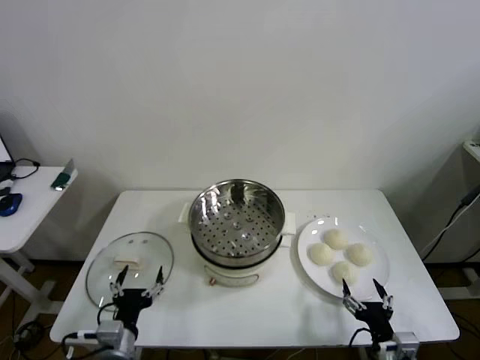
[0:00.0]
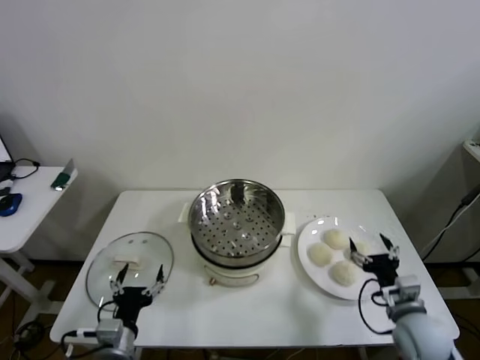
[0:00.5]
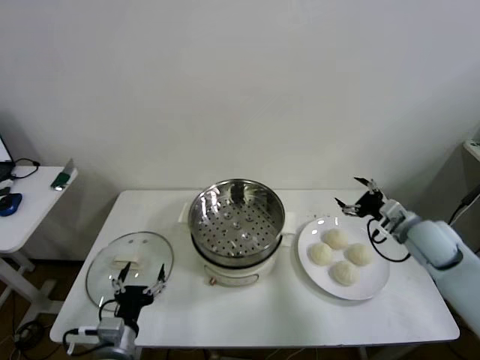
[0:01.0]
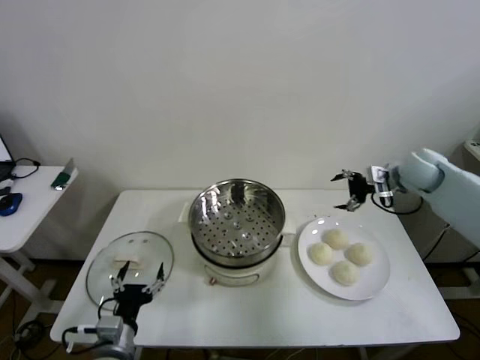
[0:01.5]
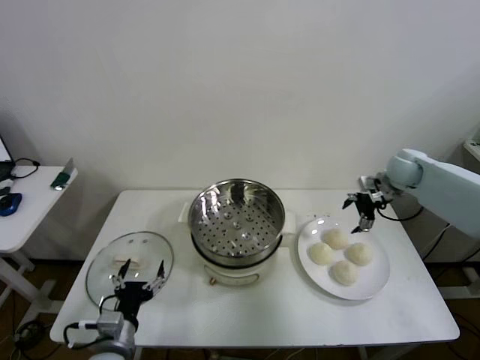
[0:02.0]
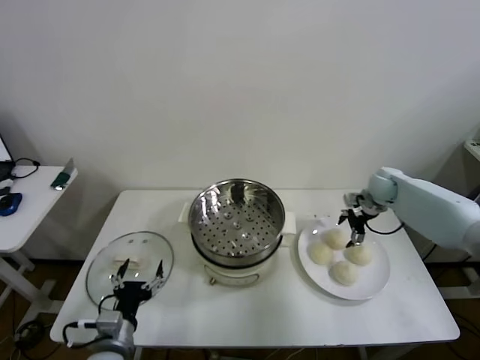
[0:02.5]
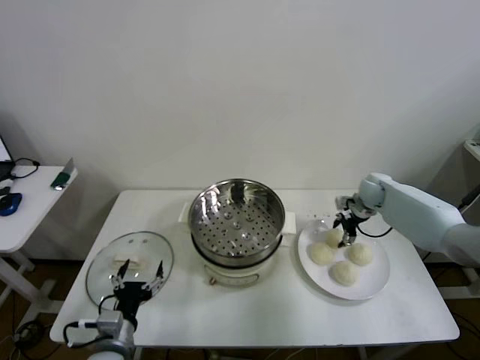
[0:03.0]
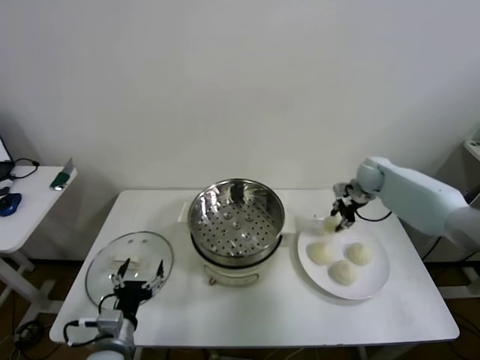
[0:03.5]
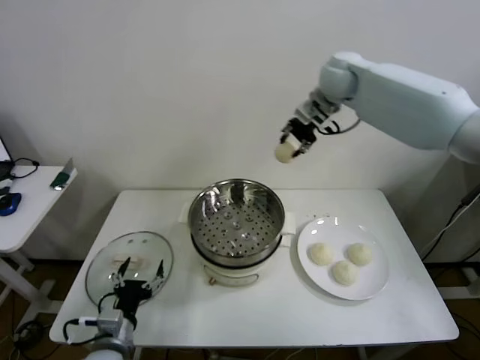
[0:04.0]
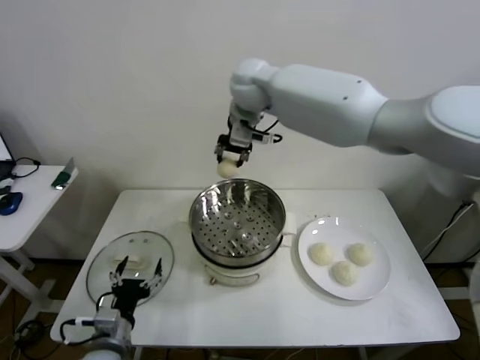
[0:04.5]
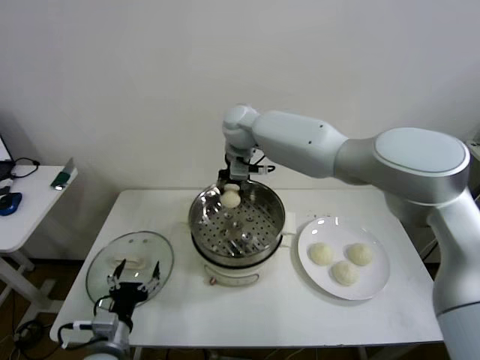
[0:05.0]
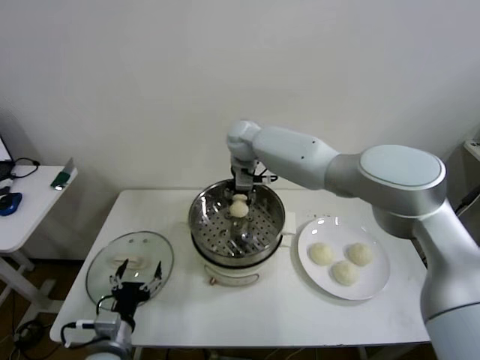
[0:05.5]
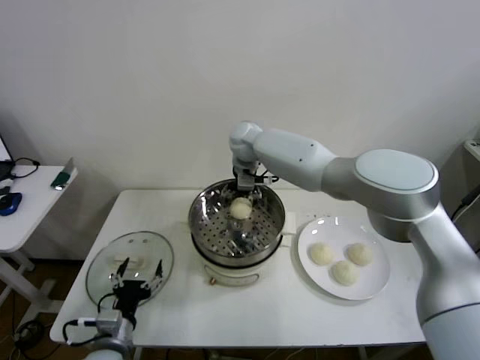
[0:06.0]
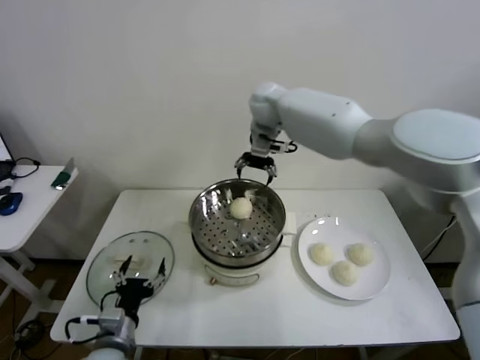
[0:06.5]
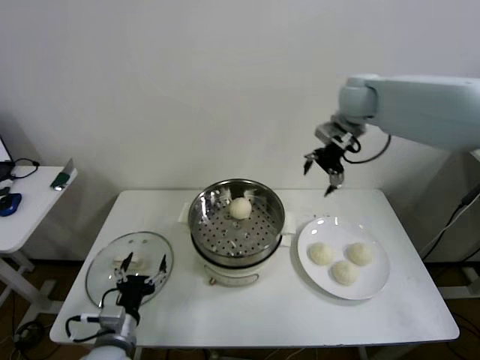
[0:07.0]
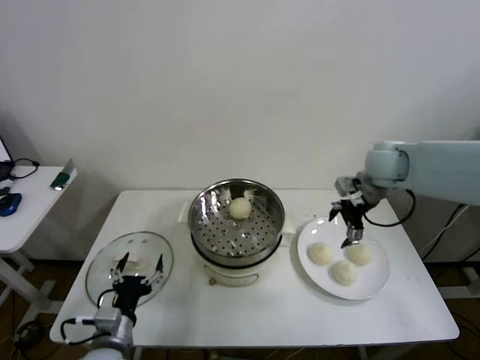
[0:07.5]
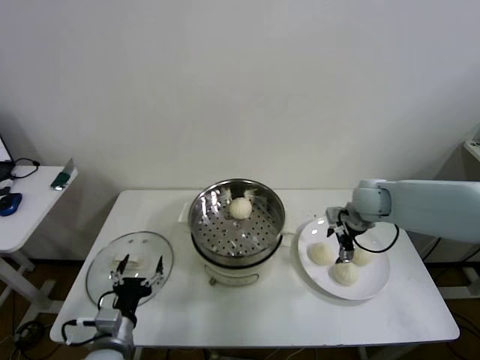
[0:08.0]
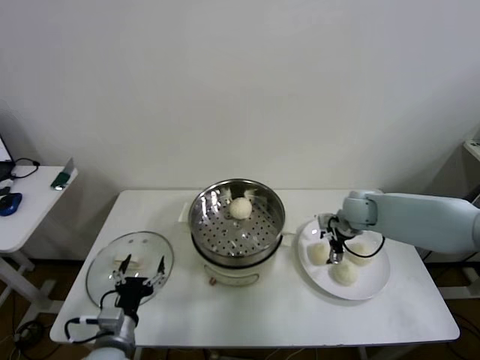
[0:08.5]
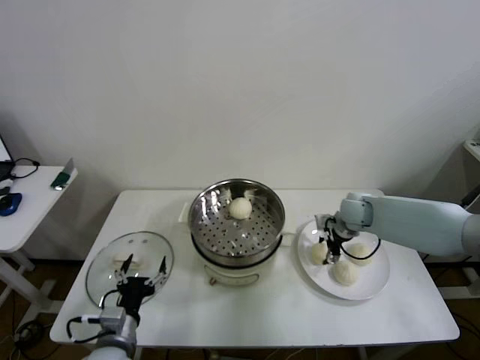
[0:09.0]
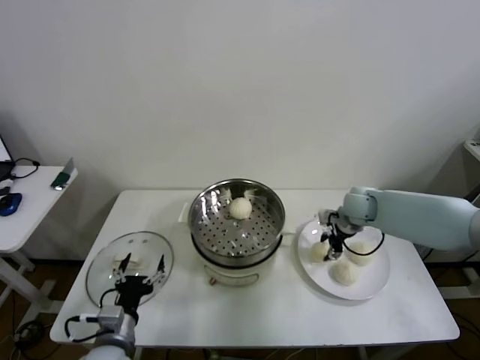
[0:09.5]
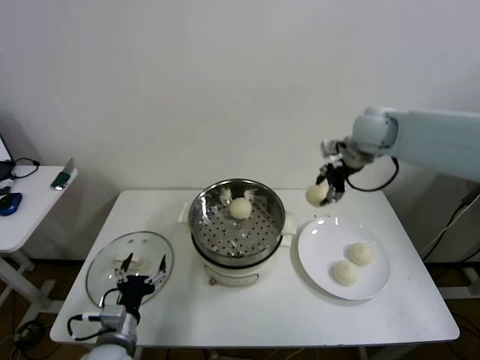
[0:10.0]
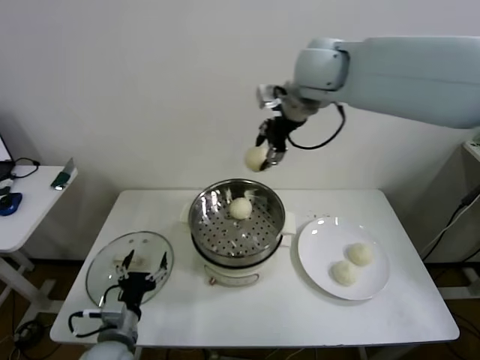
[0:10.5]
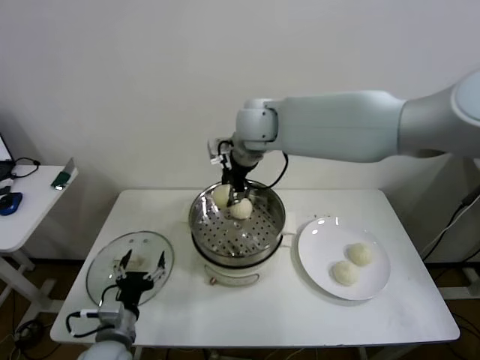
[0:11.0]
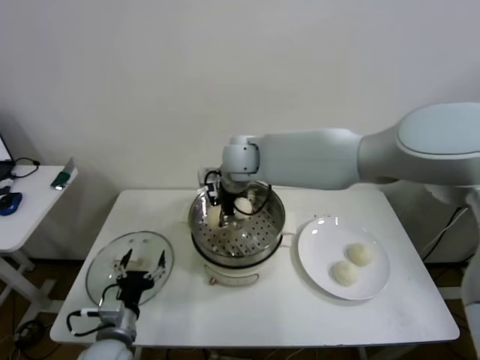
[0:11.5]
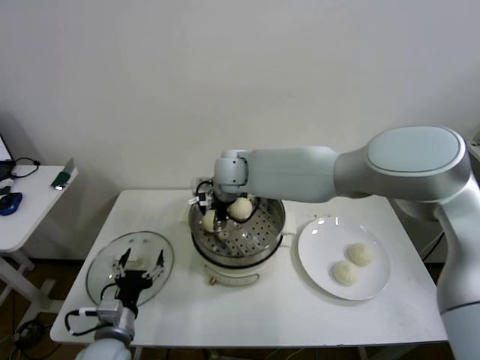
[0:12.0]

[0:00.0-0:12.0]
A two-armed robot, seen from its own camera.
Step, 0:00.0 to 0:03.0: Grasp the baozi in the plate with right gripper.
Step, 0:03.5 to 0:05.5: Place the baozi on the steamer with right gripper.
Step, 0:06.0 to 0:09.0: Grasp the baozi in the plate with right gripper.
0:02.0 to 0:04.0: The right gripper shifts approximately 35 cm upward and to the left, and closes its fingers.
0:04.0 to 0:06.0: The right gripper shifts some 25 cm downward and to the left, and opens up.
0:06.0 to 0:08.0: The right gripper travels to the right and backward by some 30 cm.
0:08.0 to 0:10.0: The right gripper goes some 20 cm upward, and closes up.
0:10.0 to 0:12.0: The right gripper travels to the left and downward by some 30 cm.

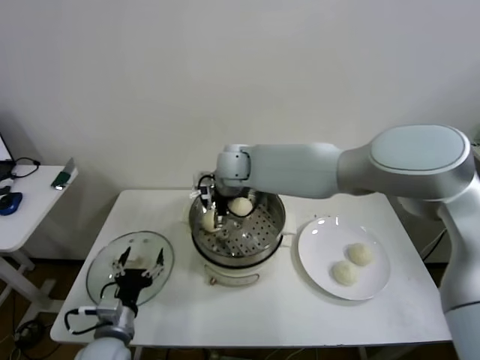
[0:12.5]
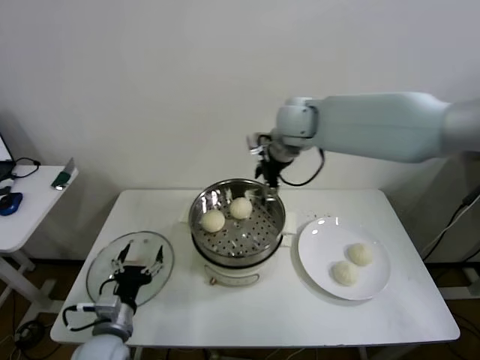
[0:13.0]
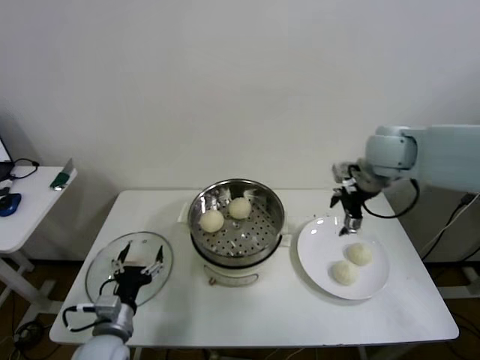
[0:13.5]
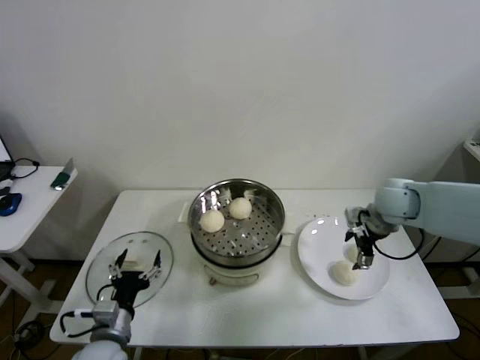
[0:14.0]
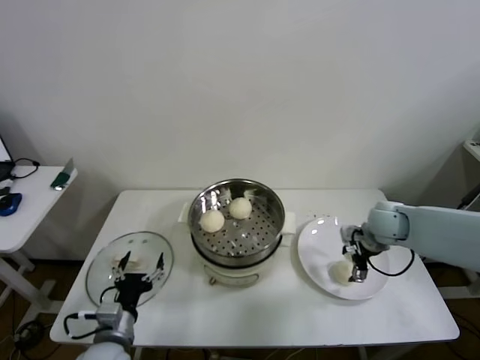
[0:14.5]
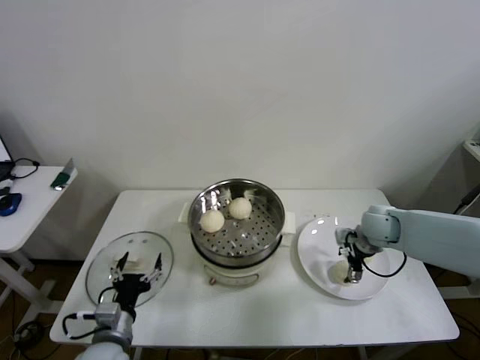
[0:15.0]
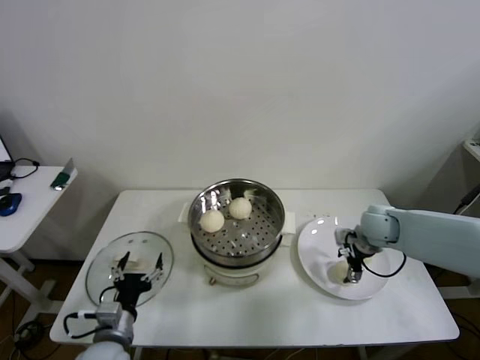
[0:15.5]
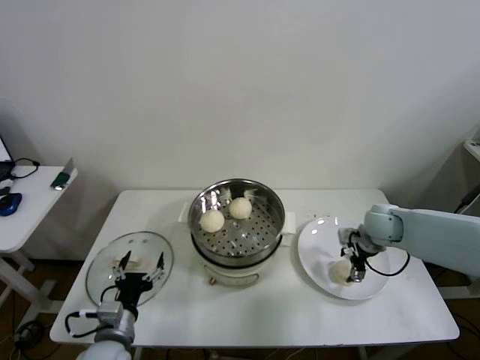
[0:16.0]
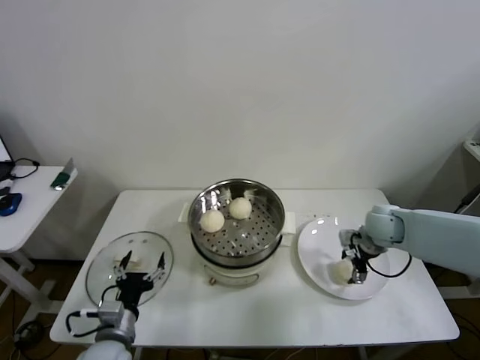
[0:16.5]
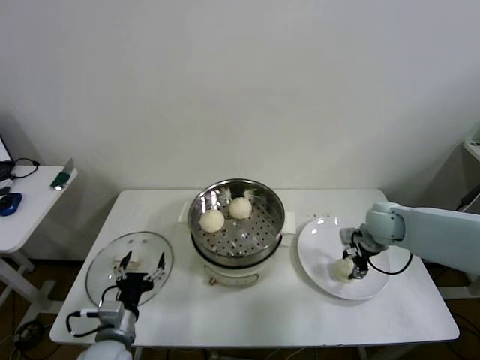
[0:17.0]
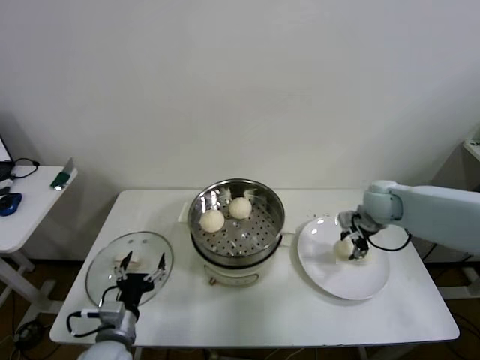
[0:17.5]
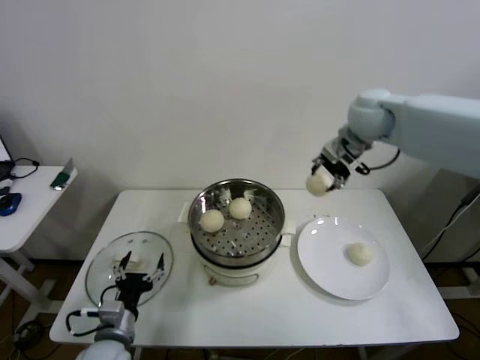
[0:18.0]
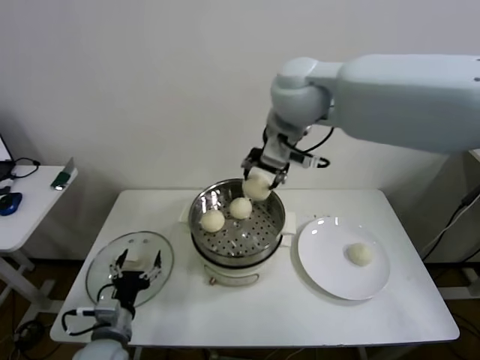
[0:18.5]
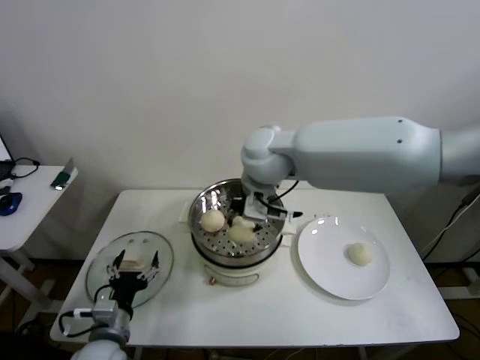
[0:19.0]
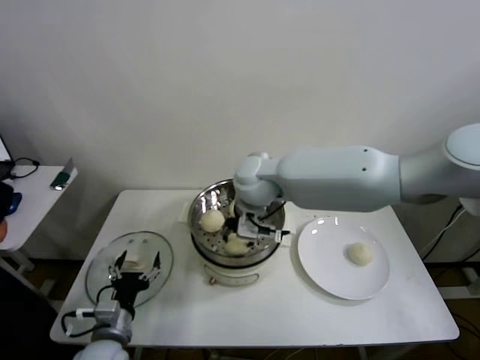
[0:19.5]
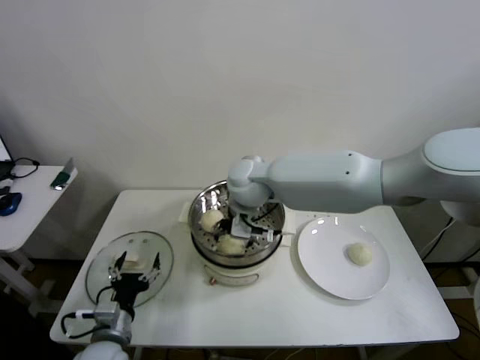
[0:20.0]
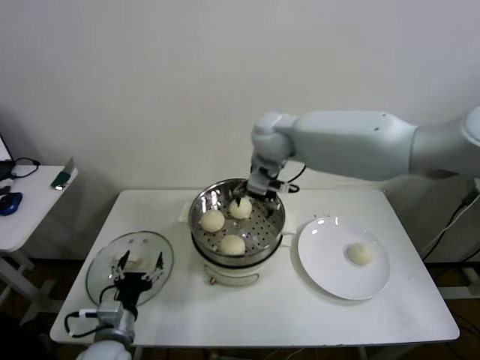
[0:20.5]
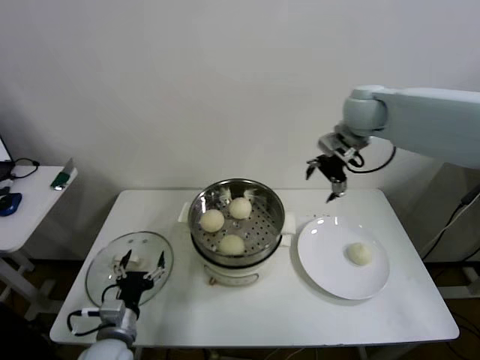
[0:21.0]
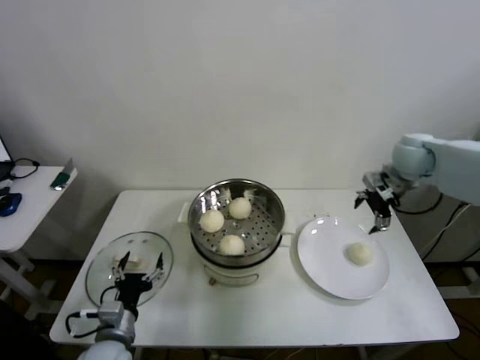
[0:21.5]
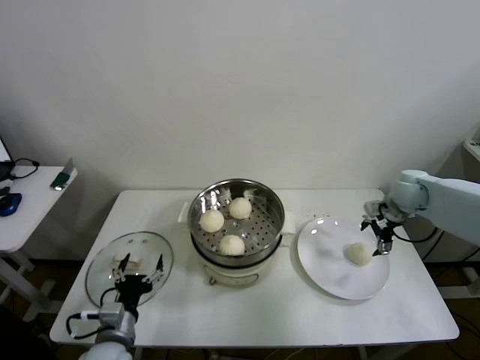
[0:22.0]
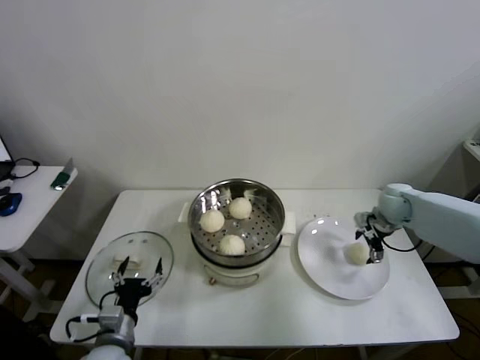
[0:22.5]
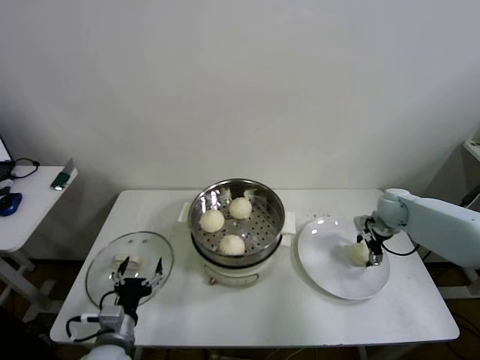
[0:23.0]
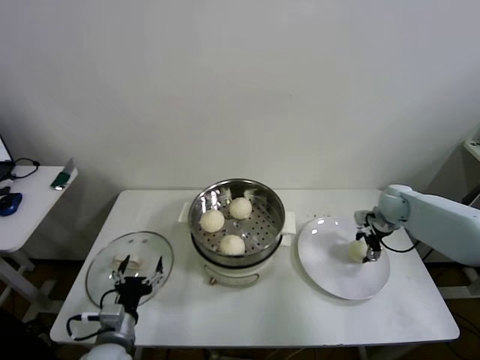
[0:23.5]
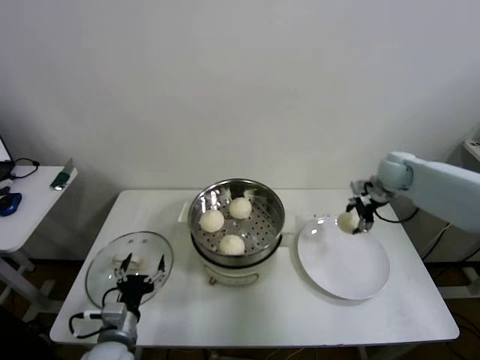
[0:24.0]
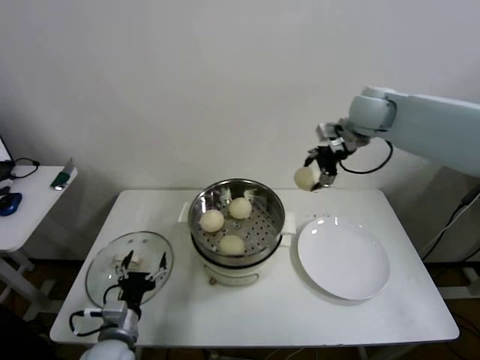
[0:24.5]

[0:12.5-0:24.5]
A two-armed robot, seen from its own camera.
Step, 0:12.5 to 0:16.5: Grasp the baozi in the plate with right gripper.
Step, 0:17.5 to 0:19.5: Place the baozi on the steamer with right gripper.
Step, 0:20.0 to 0:23.0: Grasp the baozi in the plate with right gripper.
0:12.5 to 0:14.5: The right gripper is displaced to the right by roughly 35 cm.
0:14.5 to 0:16.5: The grippers move only a little.
0:16.5 to 0:18.5: The right gripper travels upward and to the left by roughly 40 cm, and closes its fingers.
0:18.5 to 0:20.5: The right gripper heads downward and forward, covering approximately 15 cm, and opens.
0:20.5 to 0:22.5: The right gripper is displaced to the right and downward by about 40 cm.
0:22.5 to 0:24.5: The right gripper is displaced upward and to the left by approximately 25 cm.

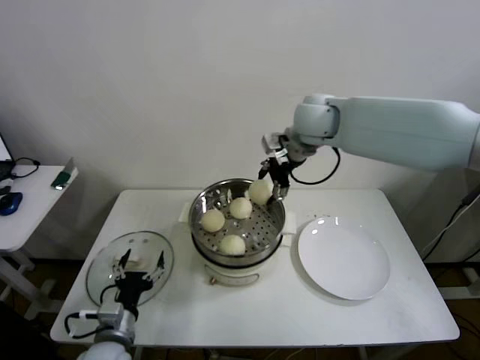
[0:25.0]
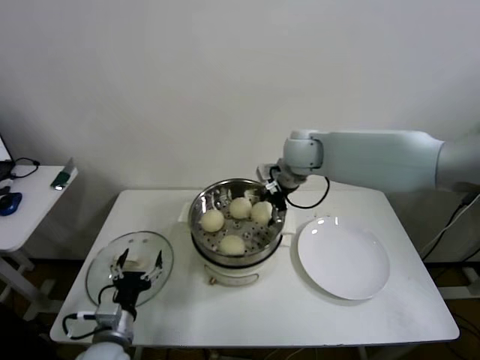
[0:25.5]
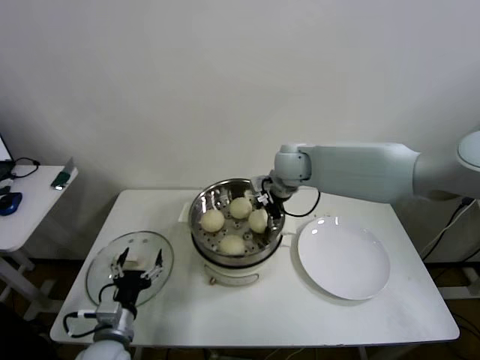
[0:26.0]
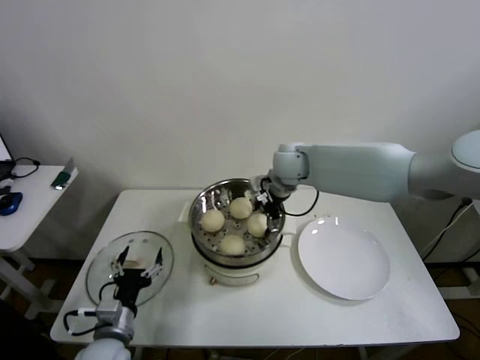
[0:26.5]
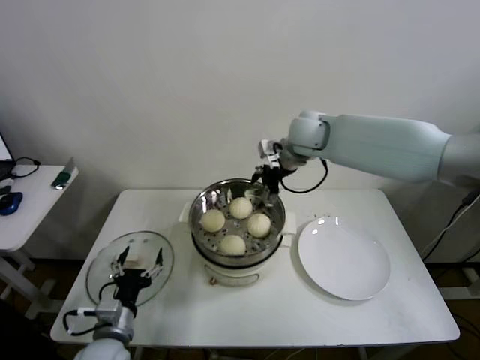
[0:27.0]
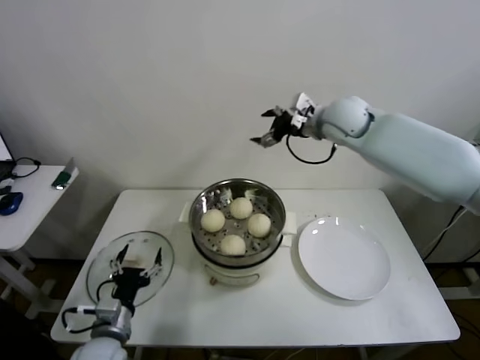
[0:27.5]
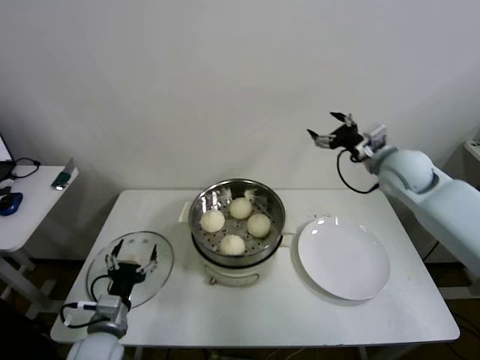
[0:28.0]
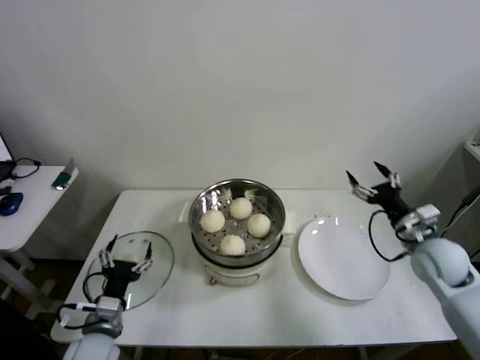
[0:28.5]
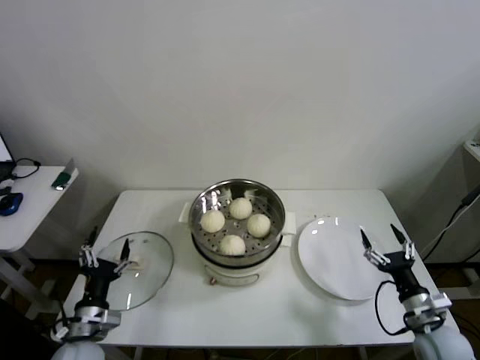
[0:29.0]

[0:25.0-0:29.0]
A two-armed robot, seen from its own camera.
0:25.0 to 0:27.0: The right gripper goes about 5 cm downward.
0:27.0 to 0:29.0: The right gripper shifts roughly 50 cm backward, downward and to the right.
